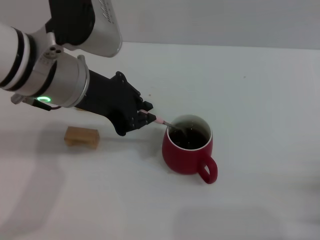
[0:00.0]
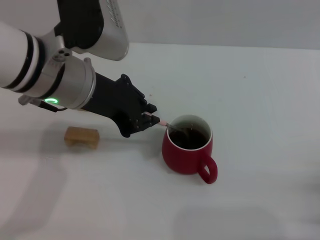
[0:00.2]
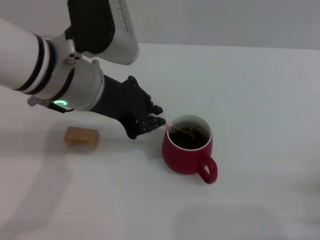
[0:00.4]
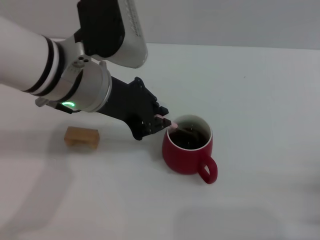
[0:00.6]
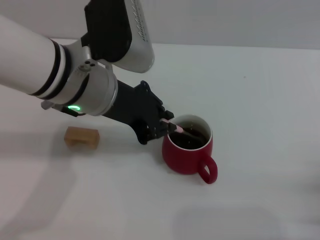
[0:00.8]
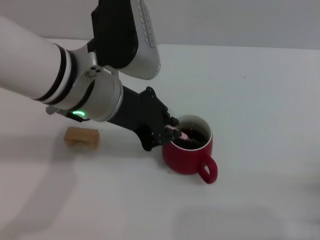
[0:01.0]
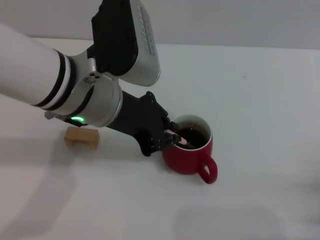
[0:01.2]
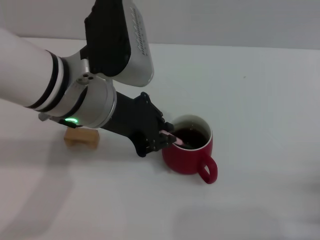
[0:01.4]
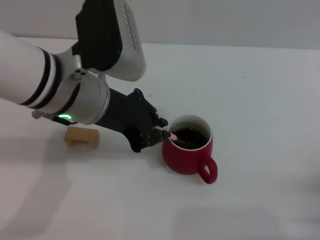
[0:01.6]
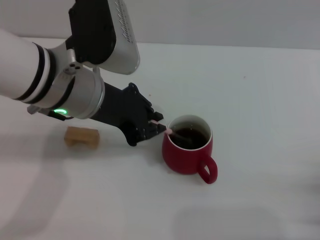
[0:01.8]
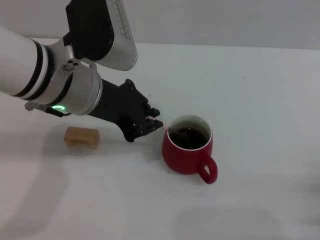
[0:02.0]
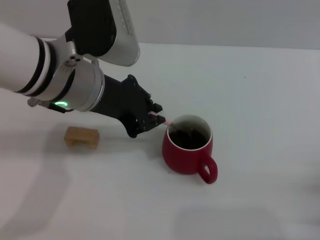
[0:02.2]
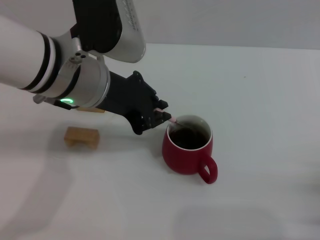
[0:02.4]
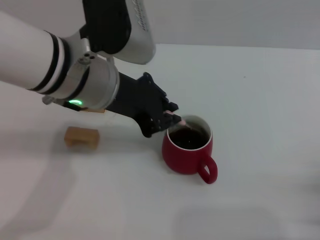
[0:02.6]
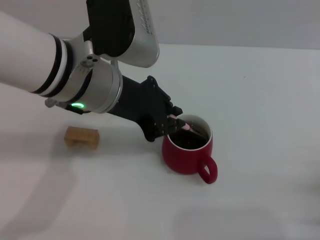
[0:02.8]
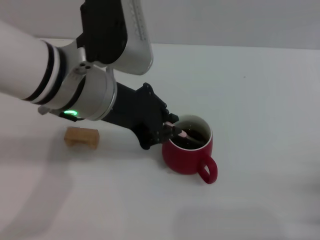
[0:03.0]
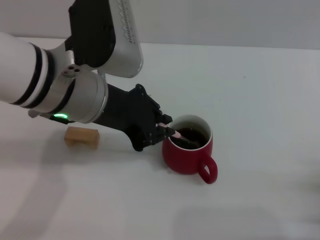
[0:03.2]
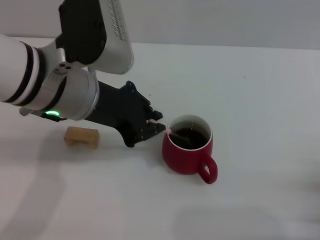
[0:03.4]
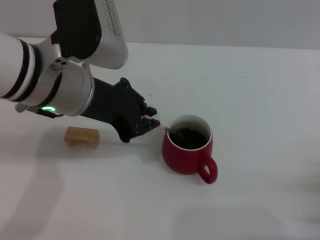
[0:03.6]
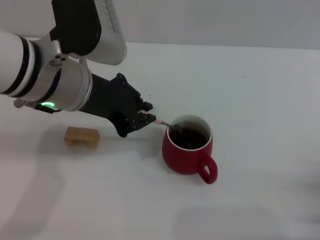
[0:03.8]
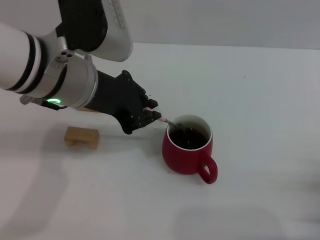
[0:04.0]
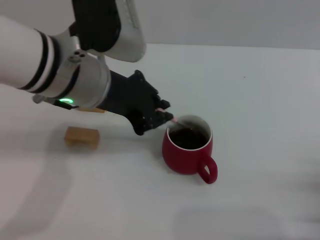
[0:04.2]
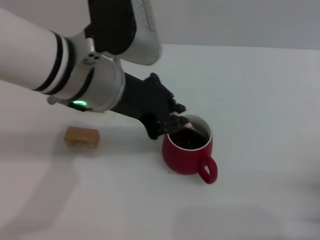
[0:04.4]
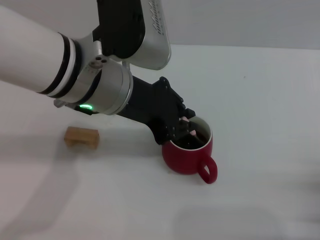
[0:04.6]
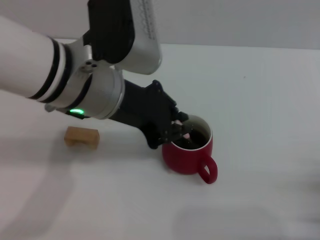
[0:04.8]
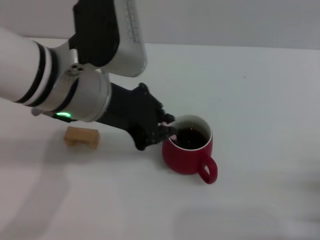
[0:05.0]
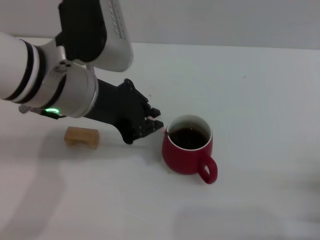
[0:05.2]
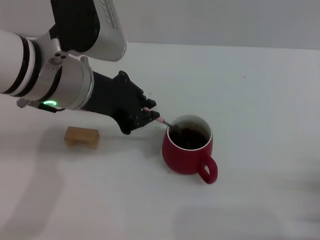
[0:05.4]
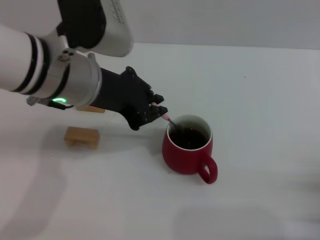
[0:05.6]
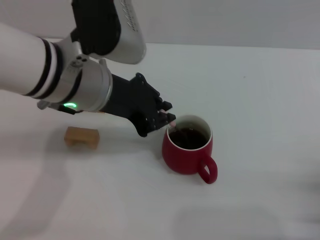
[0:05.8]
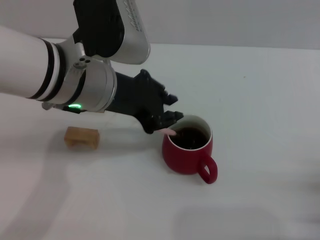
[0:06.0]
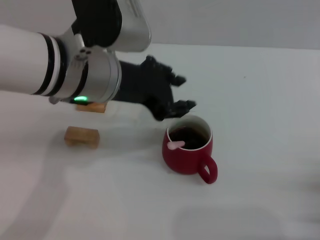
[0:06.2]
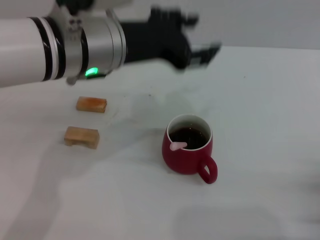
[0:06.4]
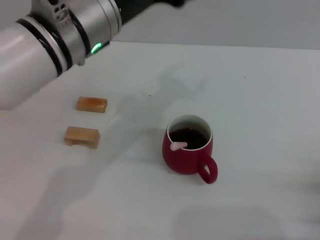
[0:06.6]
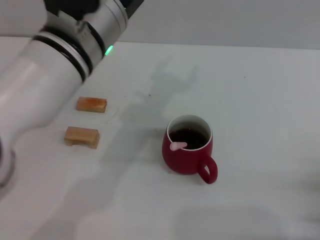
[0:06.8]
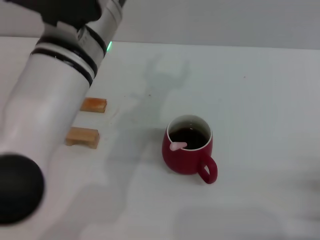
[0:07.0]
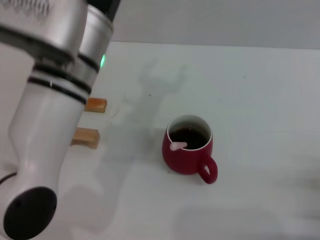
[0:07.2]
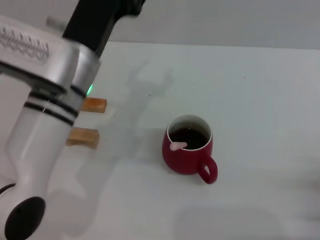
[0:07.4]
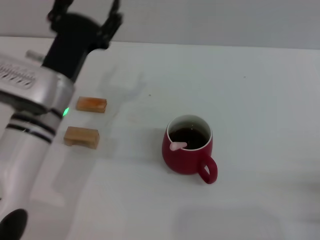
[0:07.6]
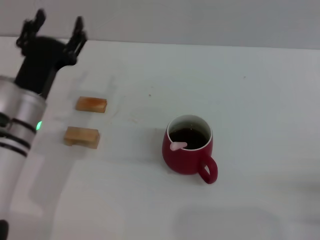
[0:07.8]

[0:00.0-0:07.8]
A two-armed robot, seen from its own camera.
Task of the whole recording: Move the red cup to the center, lift the pink spoon, stir it three times in the cup, and put the spoon into the cup.
Step, 0:00.0 to 0:06.0: Stir the coffee in the cup with the left gripper.
0:00.0 to 0:06.2: The grippers stay close to where they were, moving slightly.
0:06.2 to 0:07.8: The left gripper is displaced downward and to the left by roughly 15 cm, and opens its fingers.
